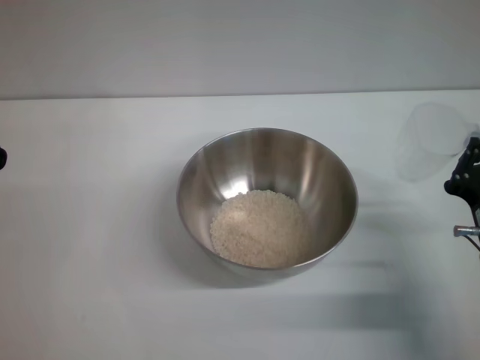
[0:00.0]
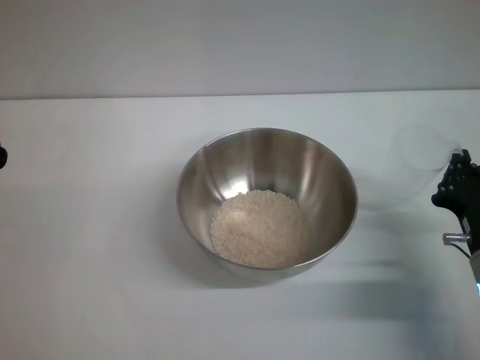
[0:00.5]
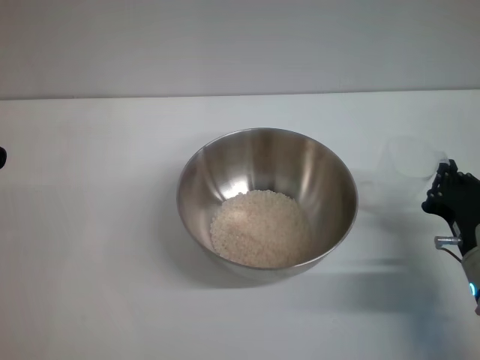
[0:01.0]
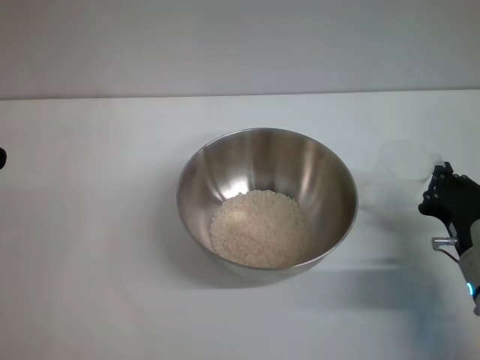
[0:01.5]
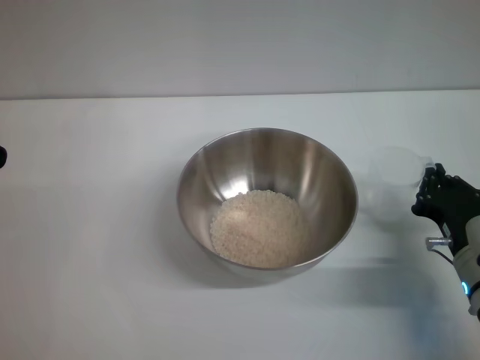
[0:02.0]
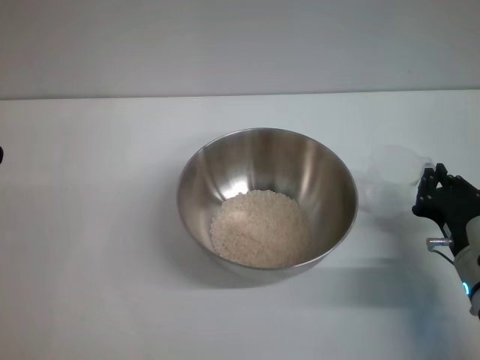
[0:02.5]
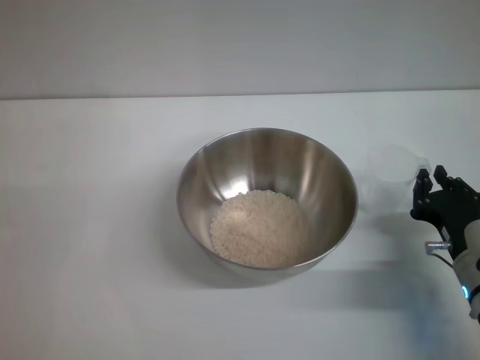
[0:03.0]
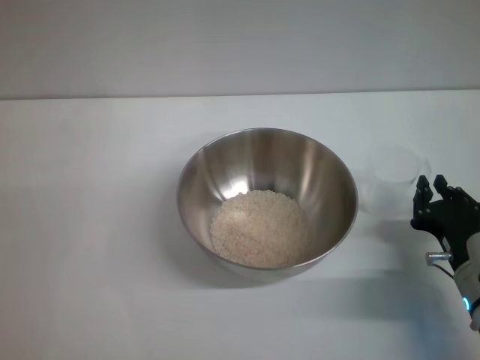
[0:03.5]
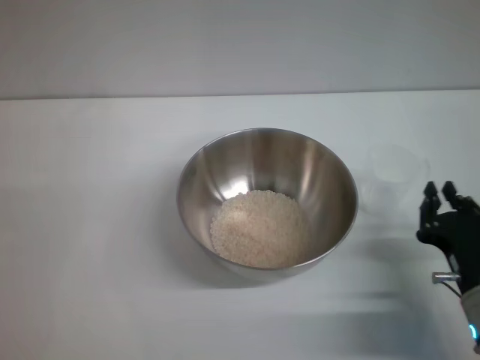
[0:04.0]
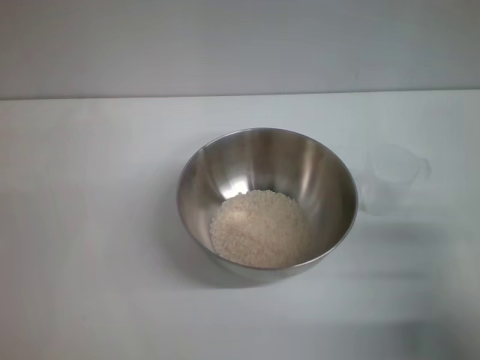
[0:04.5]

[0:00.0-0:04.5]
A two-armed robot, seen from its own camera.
Task of the whole recording: Place the bowl in the middle of the table with one hand and pour the rice from the grain cup into it with the other hand.
Step, 0:00.0 to 0:03.0: Place the cup on the table with the right gripper.
0:00.0 to 0:02.0: There are only small adjustments of the grippers.
0:02.0 to 0:04.5: The right gripper ends up some 5 cm from where it was.
